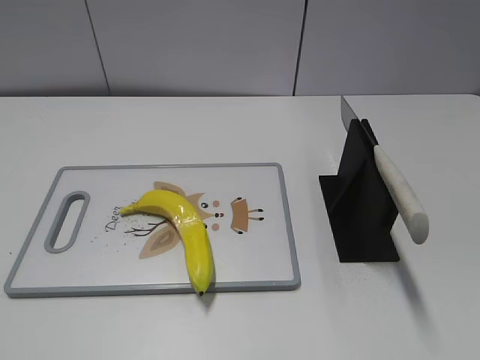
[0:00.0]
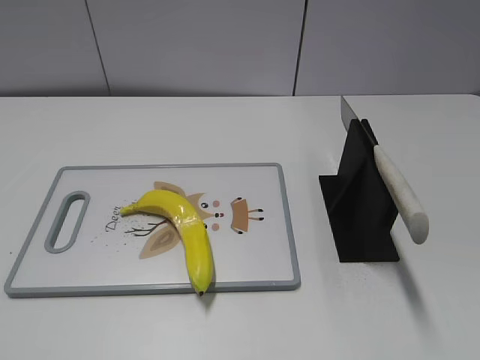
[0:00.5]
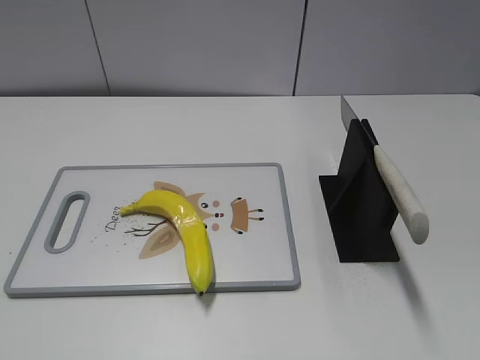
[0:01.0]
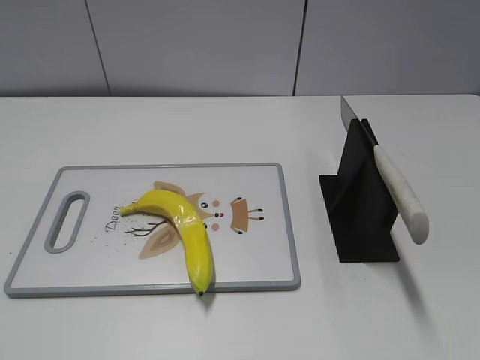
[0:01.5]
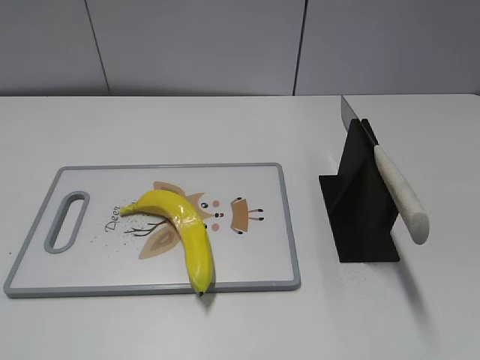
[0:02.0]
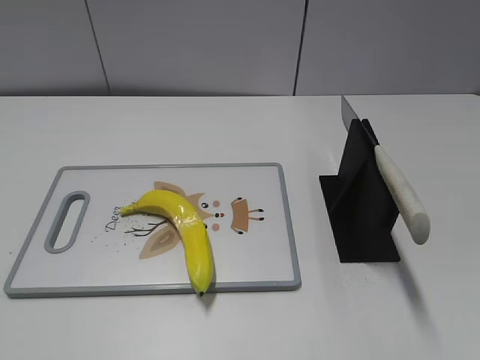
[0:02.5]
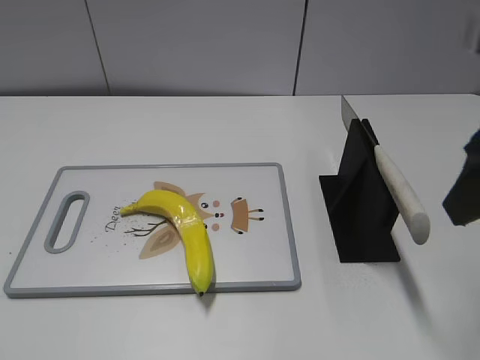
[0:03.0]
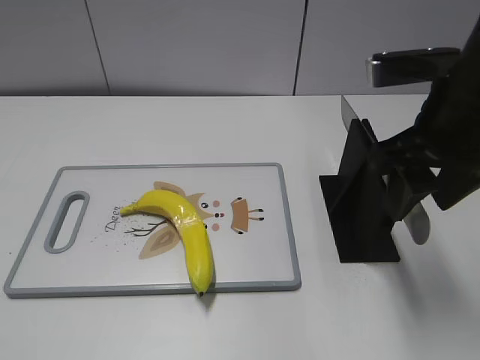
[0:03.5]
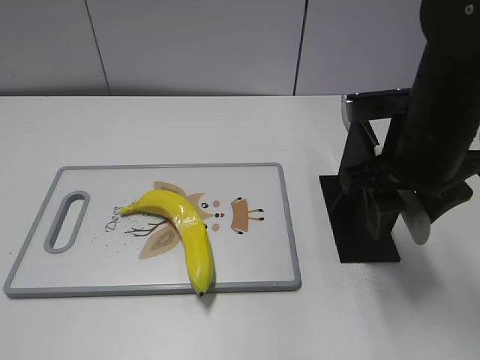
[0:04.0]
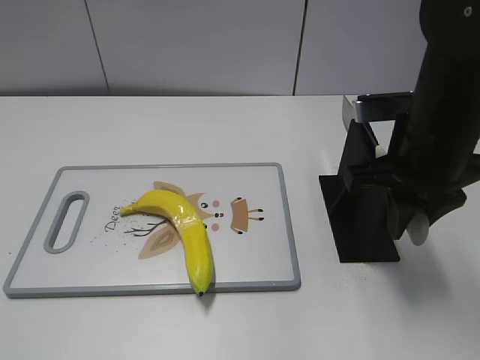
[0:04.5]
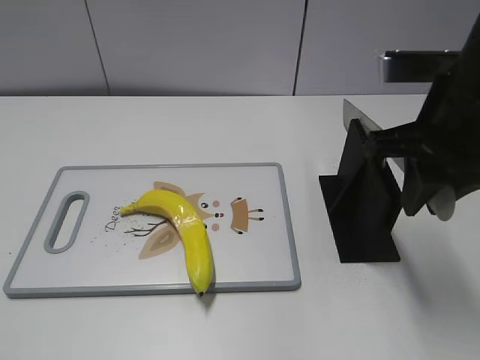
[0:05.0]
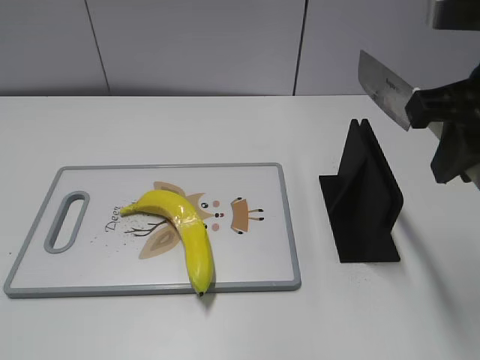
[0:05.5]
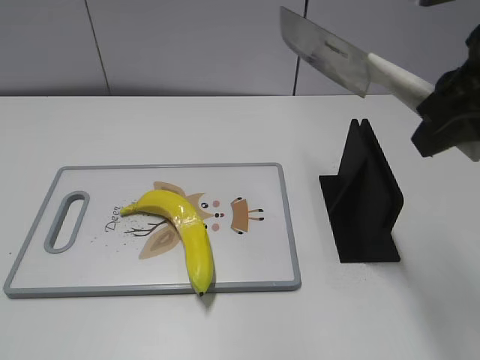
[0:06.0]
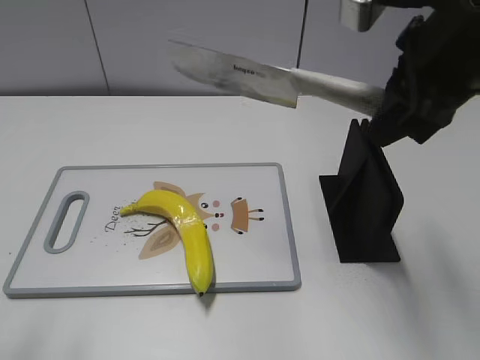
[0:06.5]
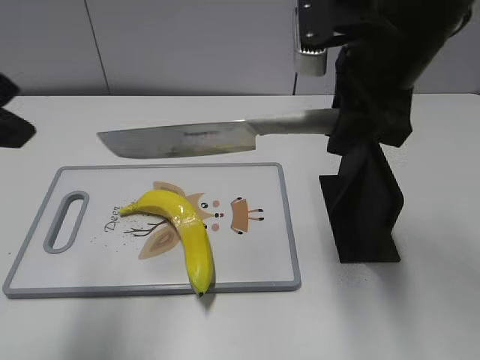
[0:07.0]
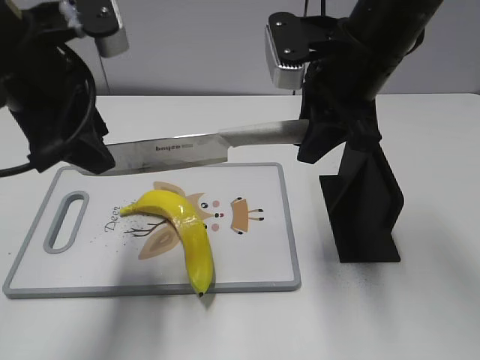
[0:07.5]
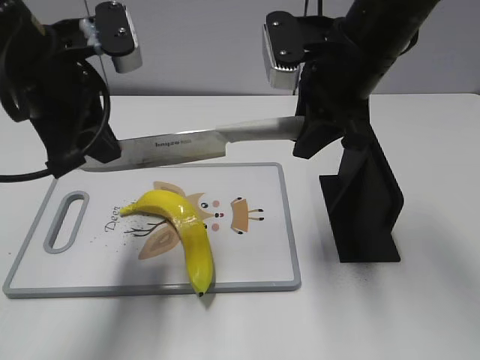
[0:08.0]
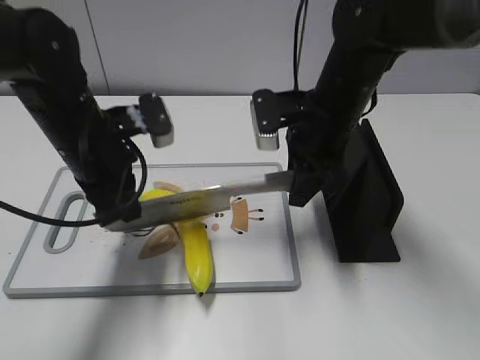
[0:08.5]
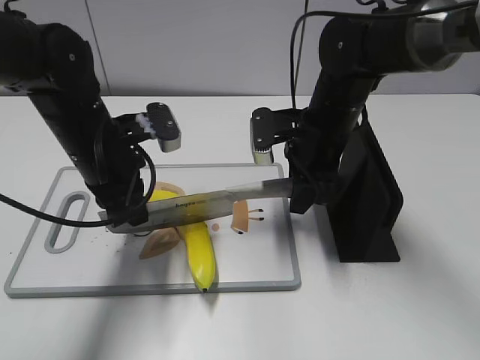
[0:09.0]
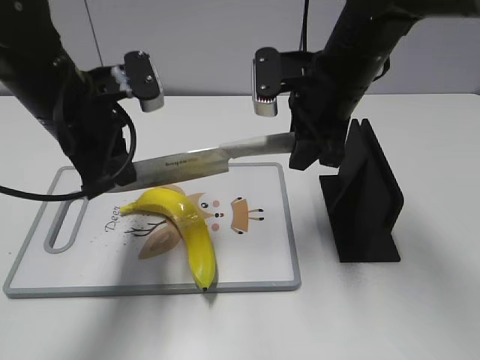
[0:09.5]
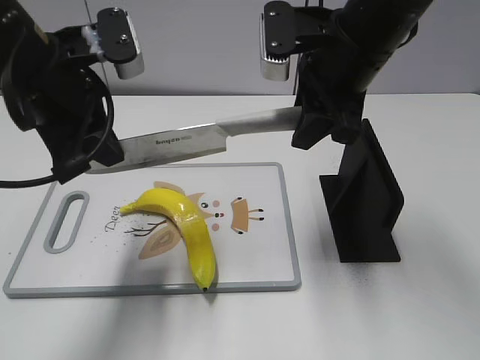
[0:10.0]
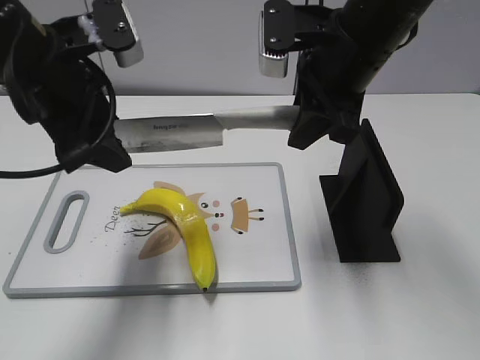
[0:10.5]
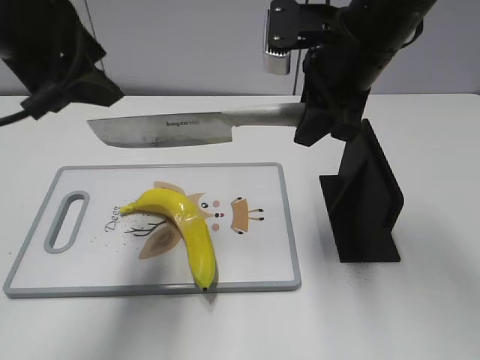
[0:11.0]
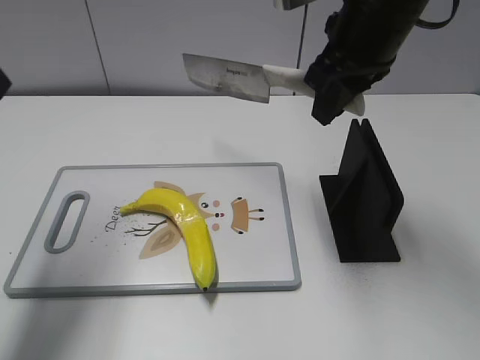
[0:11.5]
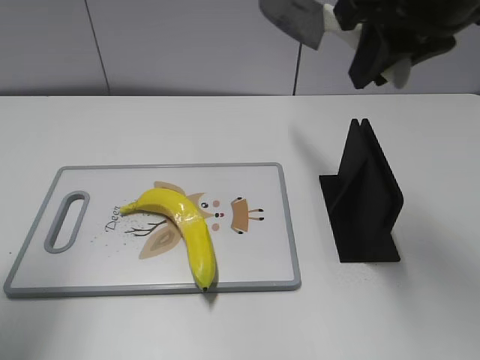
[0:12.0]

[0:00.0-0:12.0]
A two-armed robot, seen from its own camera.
Task of the whole recording: cut plastic banana.
Step, 0:00.0 to 0:05.5: Grab the knife handle with your right hand.
Step, 0:06.0 to 0:09.5: Lift the knife with your right hand.
0:02.0 to 0:04.0: The right gripper heads forward and to the left, covering about 25 cm.
0:04.0 to 0:06.0: The right gripper is displaced upward by about 10 cm, and closes.
0:06.0 to 0:08.0: The right gripper shifts about 15 cm forward, to the left and downward, while the left gripper goes roughly 30 cm forward and to the right, and closes up.
0:08.0 to 0:10.0: The right gripper travels downward and back again, roughly 10 cm each way; the left gripper goes downward and returns, some 10 cm each way.
0:10.0 to 0:12.0: The left gripper goes approximately 15 cm to the left, upward and backward, and opens. Meanwhile the right gripper shifts approximately 10 cm upward and backward.

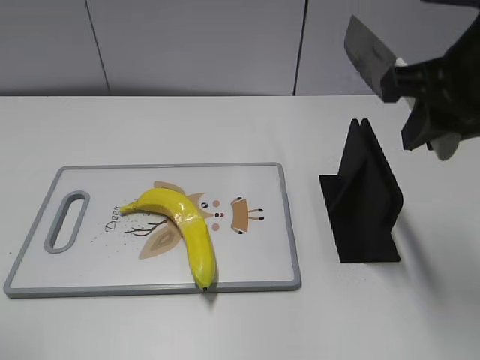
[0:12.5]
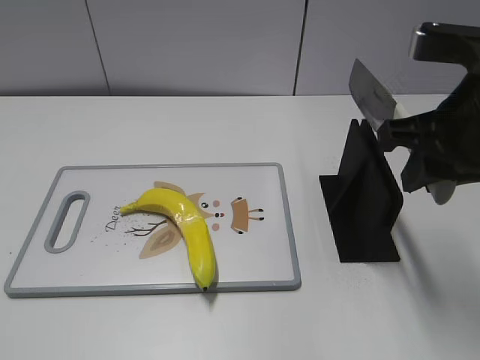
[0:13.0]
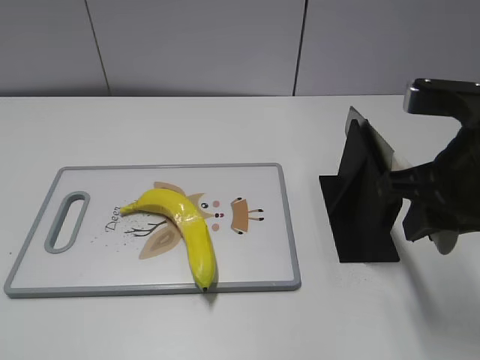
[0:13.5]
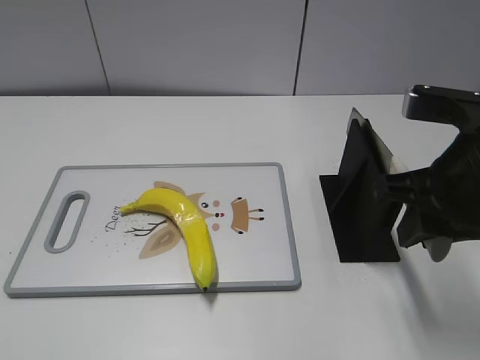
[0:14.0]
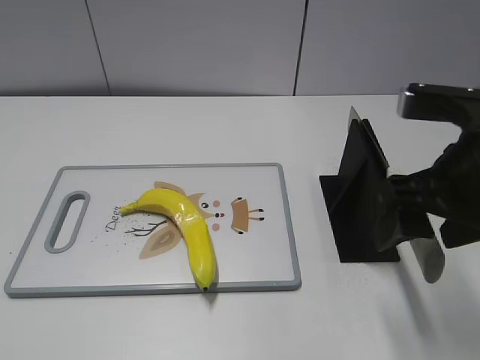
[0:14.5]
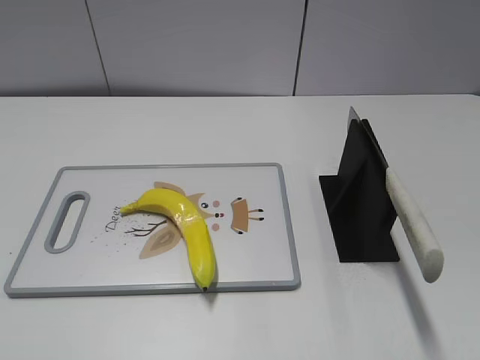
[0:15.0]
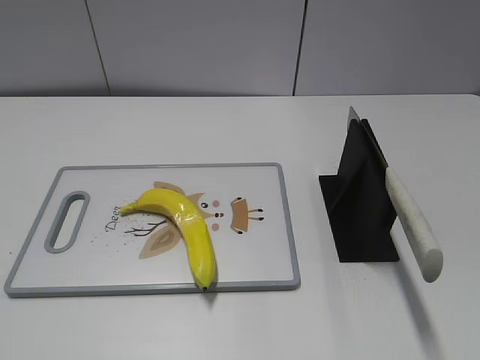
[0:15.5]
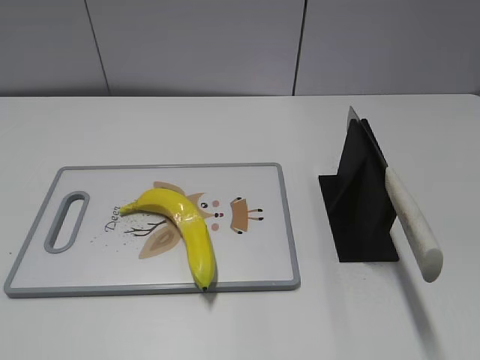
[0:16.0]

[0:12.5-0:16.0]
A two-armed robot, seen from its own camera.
Task of the whole recording: cut plastic banana.
Step, 0:12.5 to 0:16.0: Place the knife on the storage rack with your right hand.
0:12.5 to 0:14.5: The right gripper moves downward, about 5 cm, and opens its fingers.
0:14.5 to 0:16.0: The right gripper is displaced backward and to the right by some 25 cm.

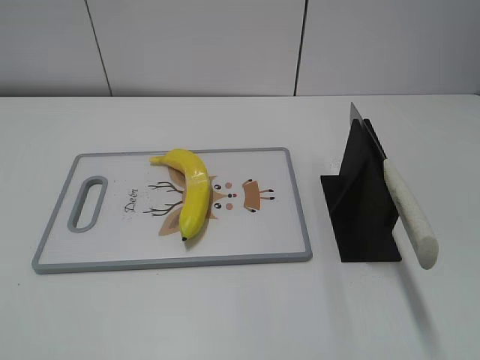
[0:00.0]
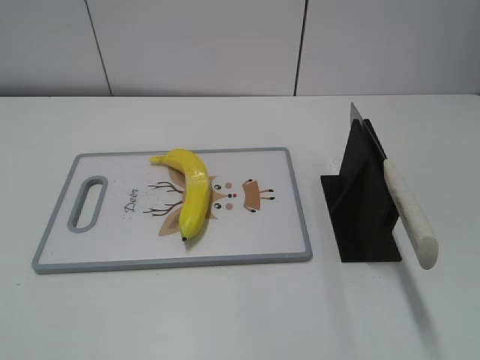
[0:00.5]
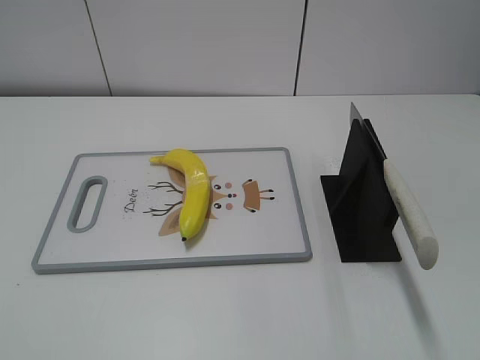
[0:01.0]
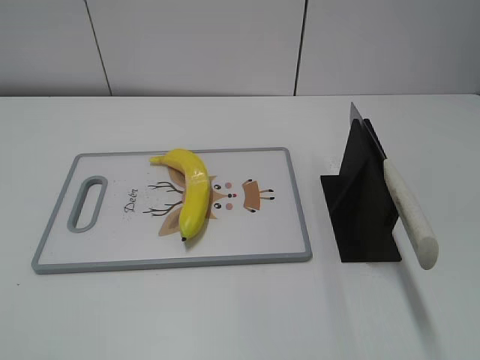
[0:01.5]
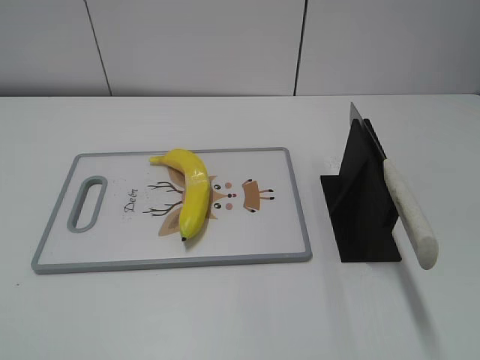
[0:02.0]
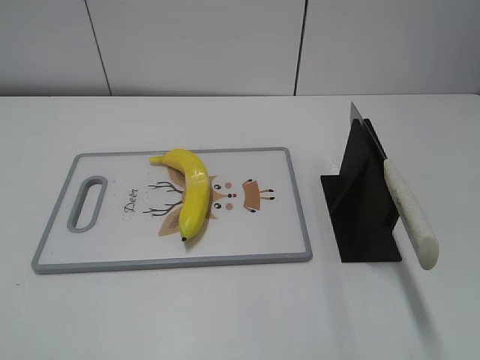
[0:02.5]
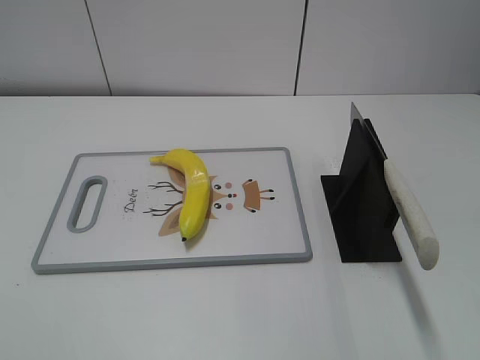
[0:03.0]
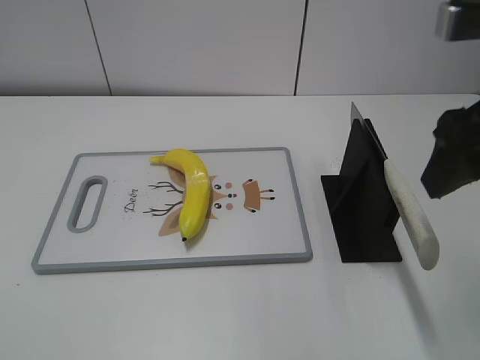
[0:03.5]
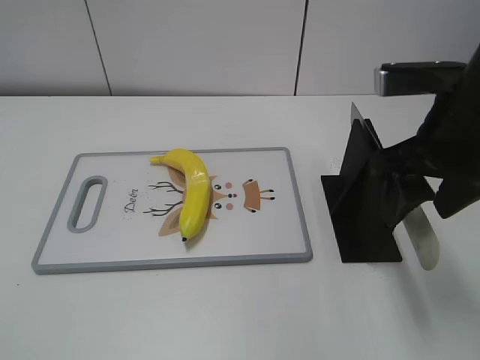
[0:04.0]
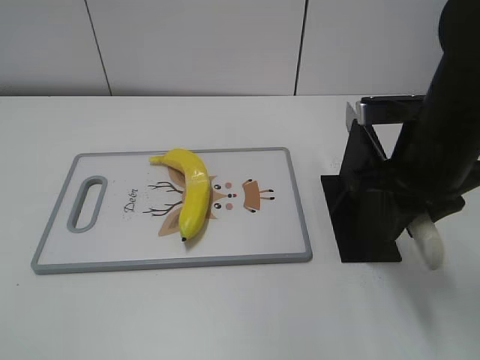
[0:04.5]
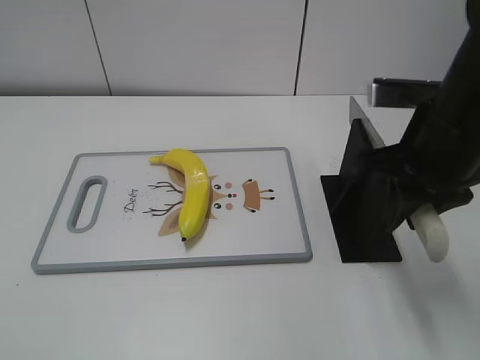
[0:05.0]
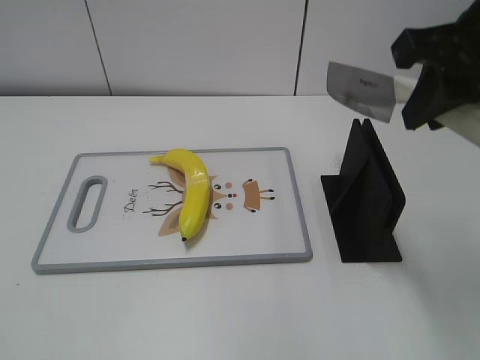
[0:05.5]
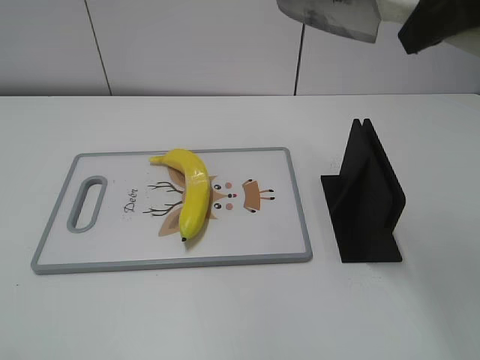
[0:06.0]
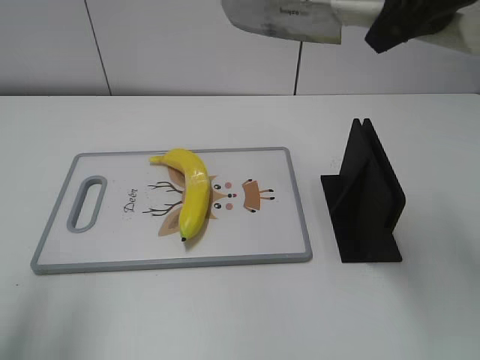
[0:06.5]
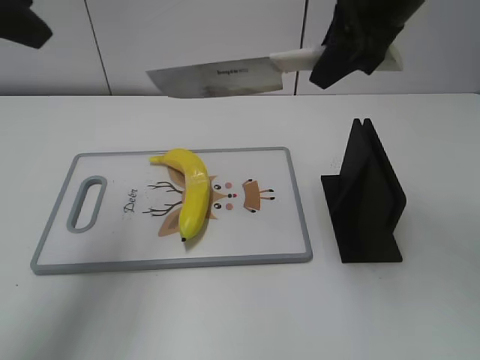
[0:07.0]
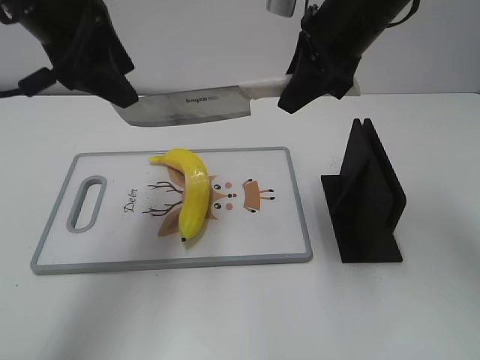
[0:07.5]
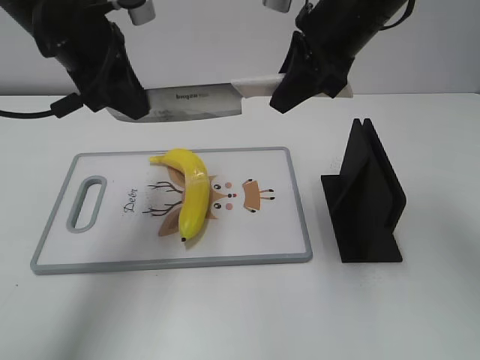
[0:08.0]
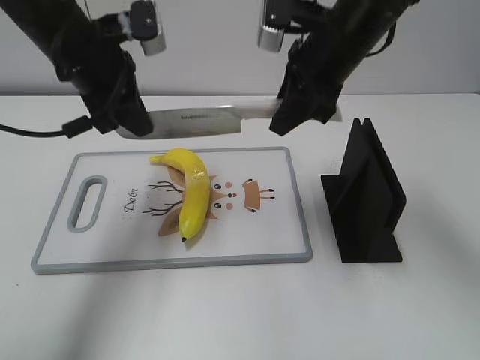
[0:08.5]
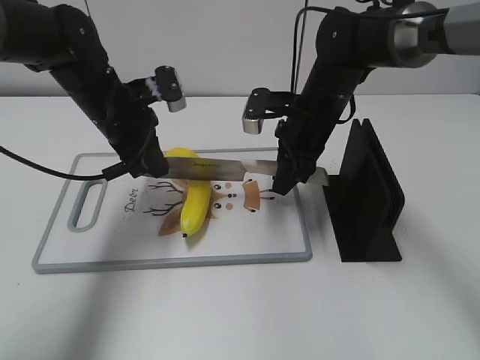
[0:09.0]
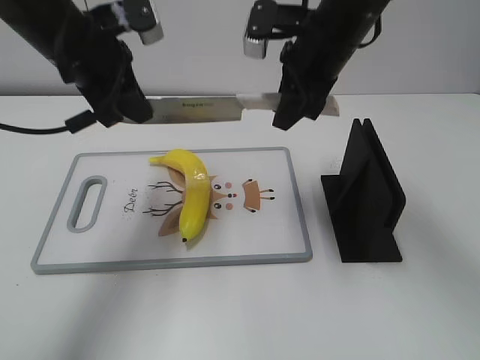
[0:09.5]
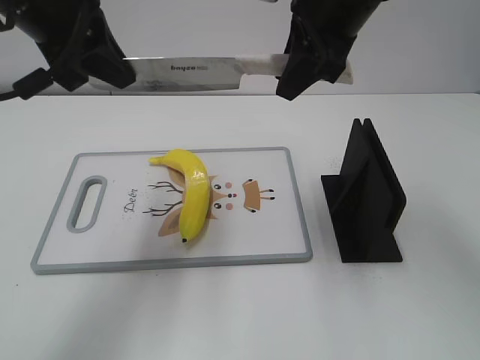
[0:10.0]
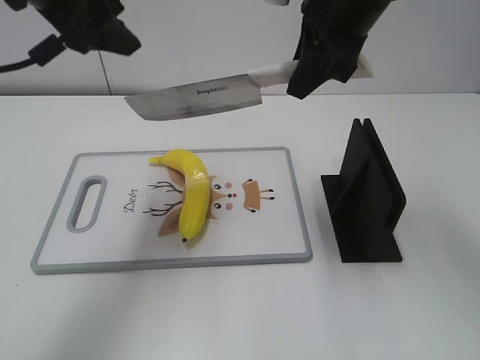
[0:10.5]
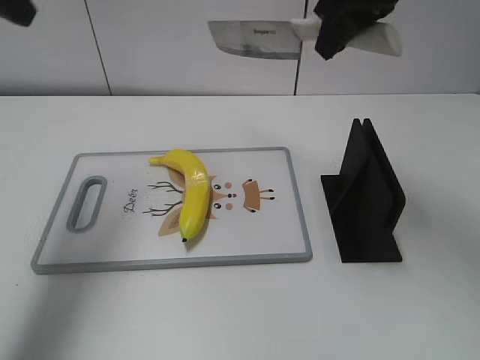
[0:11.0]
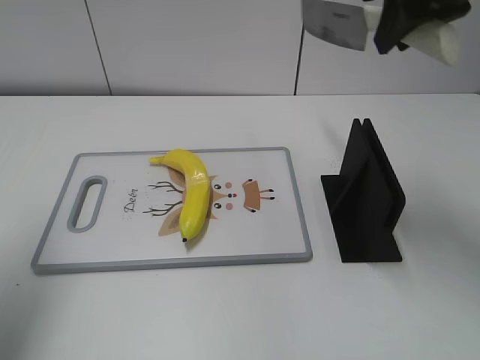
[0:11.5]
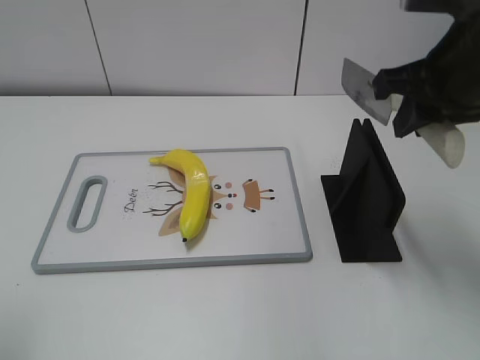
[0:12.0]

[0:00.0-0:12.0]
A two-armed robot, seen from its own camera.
Task of the whole recording: cut plastic banana.
Step, 0:00.0 to 0:06.0: Grab the knife handle with your right hand.
Step, 0:06.5 to 0:10.0: Lift the knife with your right hand.
Step, 0:10.5 to 0:11.0: Cut the banana with your right hand.
0:02.0 to 0:04.0: The right gripper moves forward and to the left, roughly 25 cm.
0:04.0 to 0:06.0: The right gripper travels upward by roughly 15 cm, and closes its fingers.
0:06.0 to 0:08.0: The right gripper heads forward, downward and to the left, covering roughly 15 cm; the left gripper shifts some 35 cm forward and to the right.
0:08.0 to 0:10.0: The right gripper travels downward and back again, approximately 15 cm each way. The left gripper travels downward and back again, some 15 cm each way, and closes its fingers.
0:10.0 to 0:12.0: The left gripper is displaced backward and to the left by some 25 cm, and opens its fingers, while the right gripper travels to the right and backward by approximately 10 cm.
